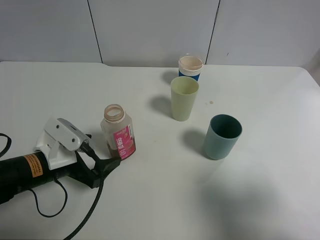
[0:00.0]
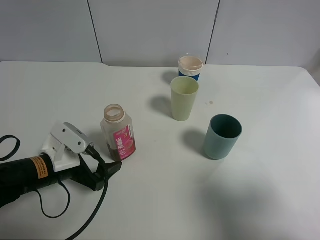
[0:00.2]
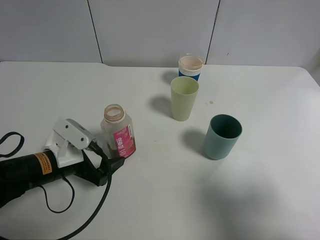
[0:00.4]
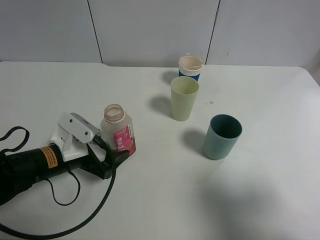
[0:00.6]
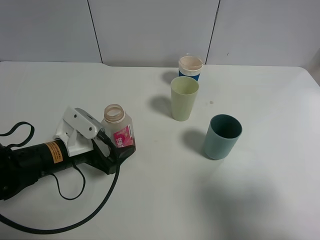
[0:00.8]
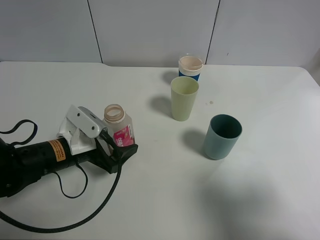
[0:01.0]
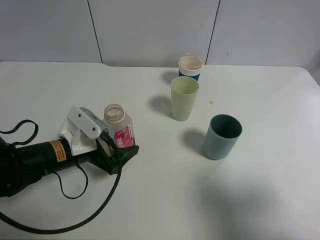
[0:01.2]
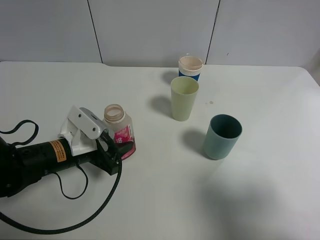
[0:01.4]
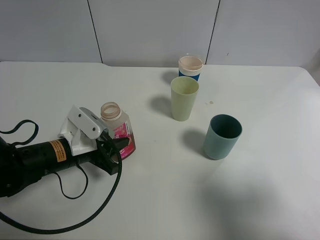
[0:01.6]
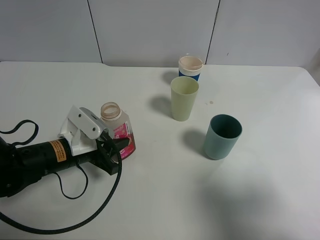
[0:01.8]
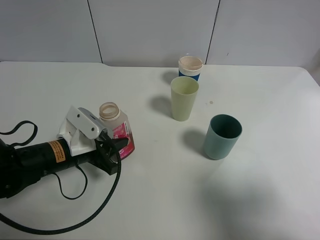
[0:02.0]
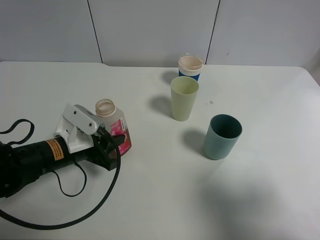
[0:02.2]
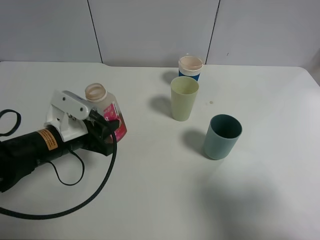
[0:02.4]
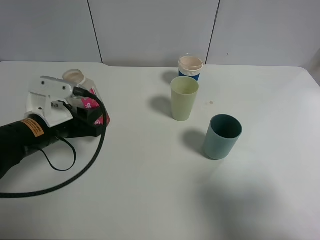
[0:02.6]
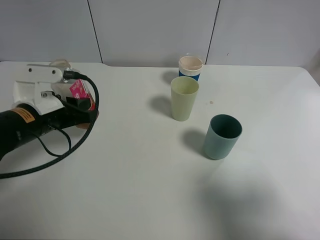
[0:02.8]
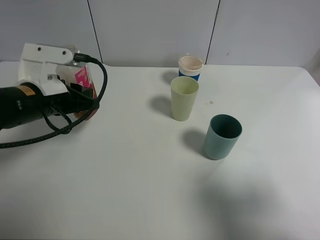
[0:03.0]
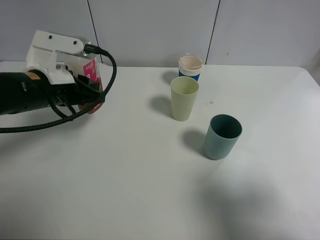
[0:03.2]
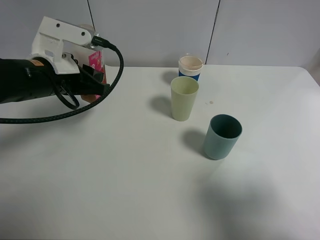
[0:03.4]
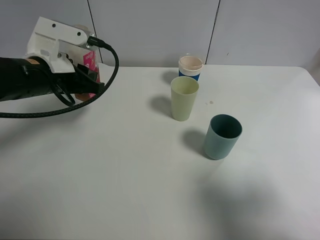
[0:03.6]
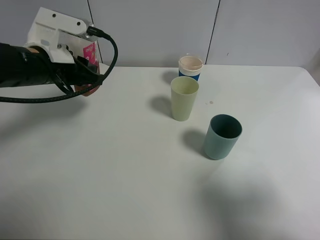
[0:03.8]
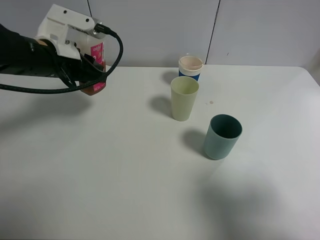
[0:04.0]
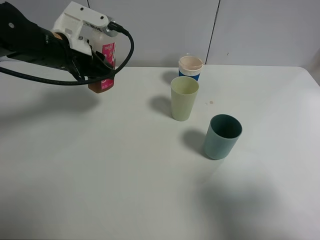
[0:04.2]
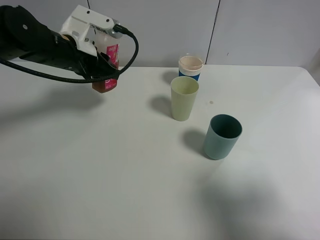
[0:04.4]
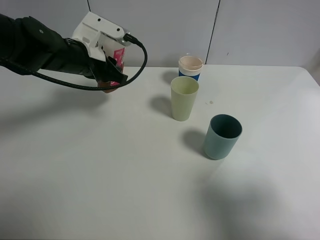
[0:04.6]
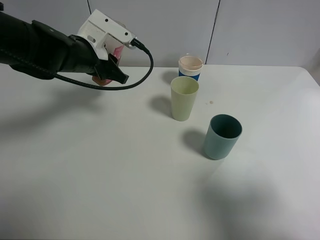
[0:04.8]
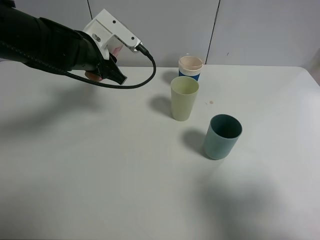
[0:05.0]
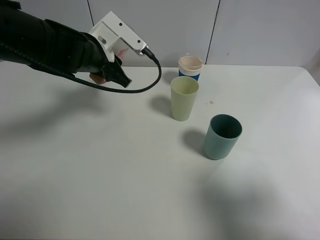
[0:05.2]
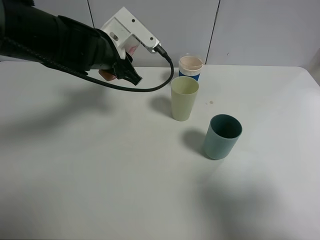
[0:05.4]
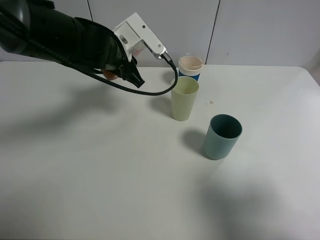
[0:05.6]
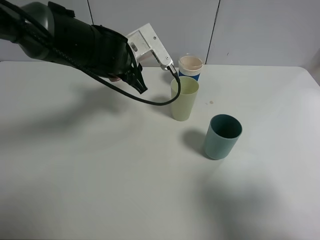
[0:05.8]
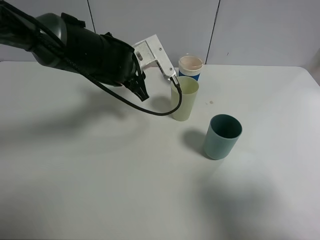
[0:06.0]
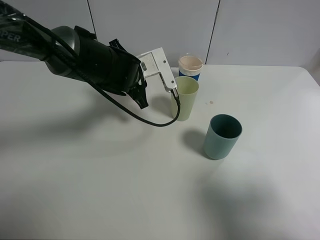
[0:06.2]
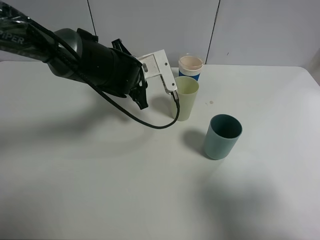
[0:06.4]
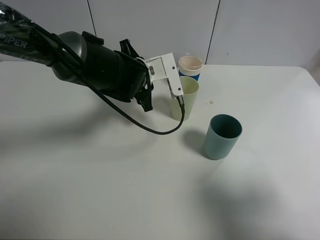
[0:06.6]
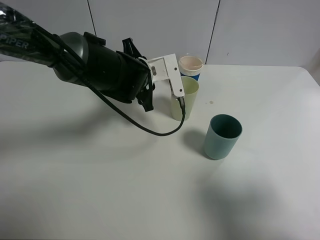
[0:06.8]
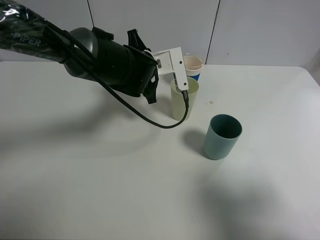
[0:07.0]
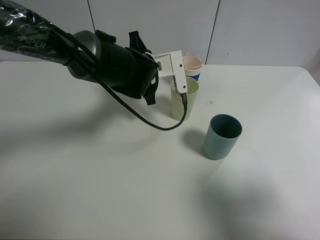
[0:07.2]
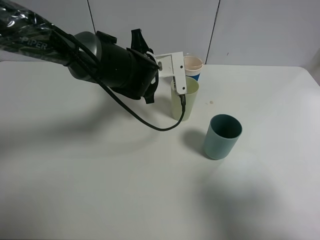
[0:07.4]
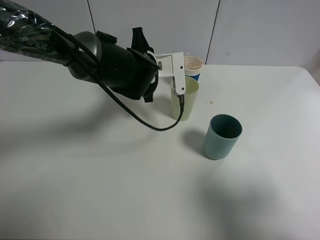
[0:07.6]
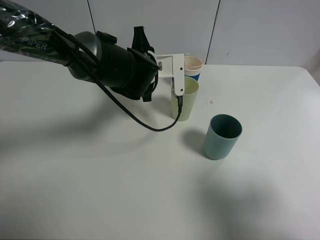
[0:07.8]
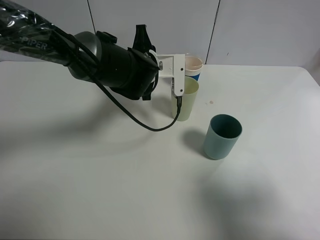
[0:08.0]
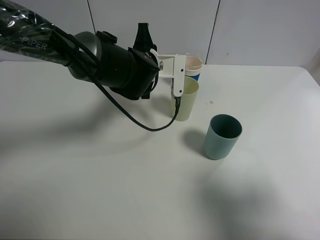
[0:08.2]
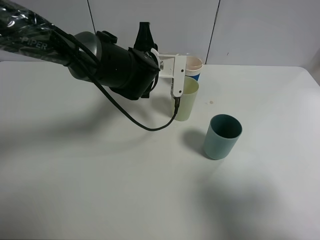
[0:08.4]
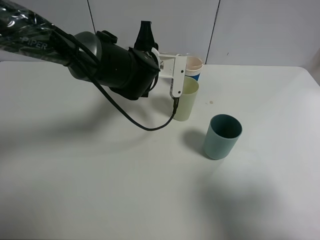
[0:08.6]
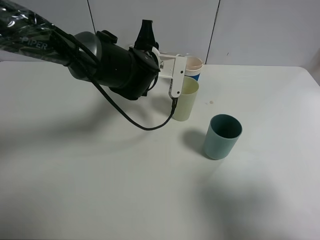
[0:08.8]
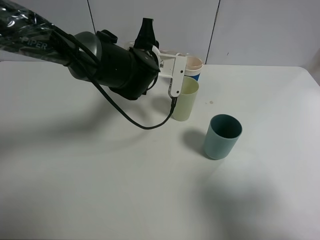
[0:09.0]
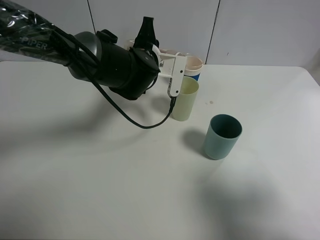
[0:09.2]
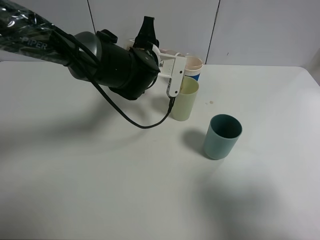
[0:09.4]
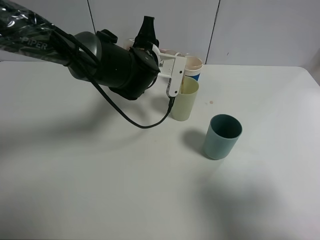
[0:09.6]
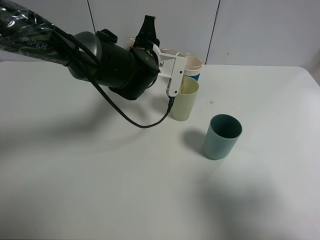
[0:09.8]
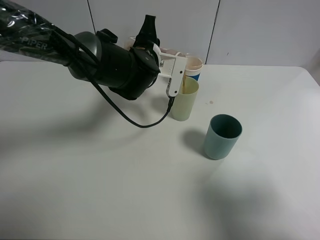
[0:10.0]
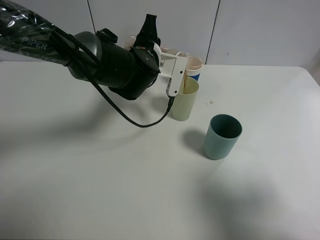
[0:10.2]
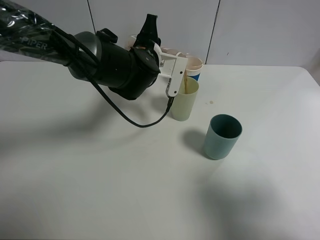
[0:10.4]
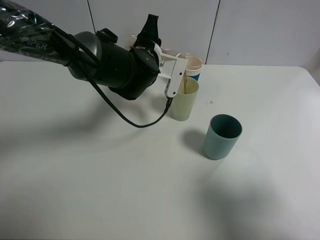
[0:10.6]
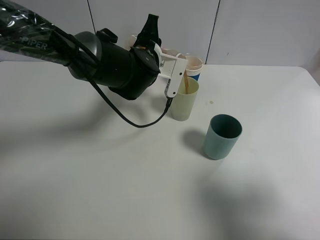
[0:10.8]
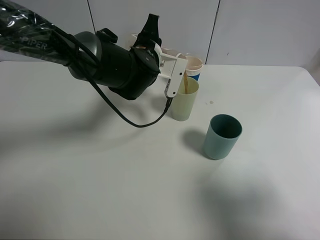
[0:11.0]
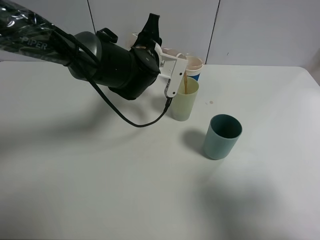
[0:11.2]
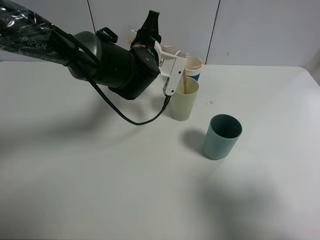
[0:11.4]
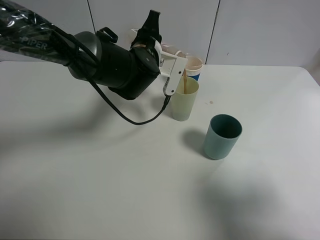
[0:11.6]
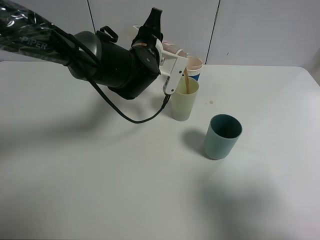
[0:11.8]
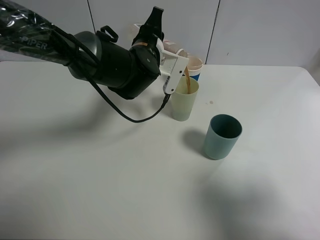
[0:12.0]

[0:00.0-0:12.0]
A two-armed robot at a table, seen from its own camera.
Task of the whole recording: use a clamp to hold the bottle of the drink, pour the beverage into a random cup, then clamp the cup containing the drink and pour the drink into another random cup.
Step, 0:00.0 to 0:02.4: Pick up the drink bottle with left gripper.
0:00.0 to 0:01.6: The left gripper closes its fingers.
0:01.6 to 0:03.0: The left gripper shifts approximately 10 cm upward.
0:03.0 to 0:04.4: The left gripper shifts roughly 10 cm forward.
0:04.4 to 0:06.0: The left gripper shifts some 10 cm to the right.
0:07.6 to 0:09.0: The grippers move only a little.
0:09.0 to 0:12.0: The grippers make only small movements.

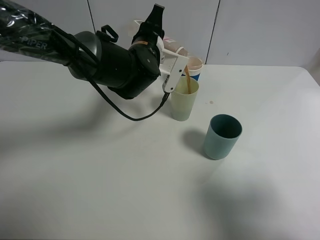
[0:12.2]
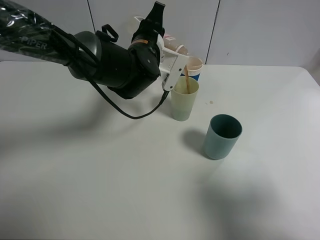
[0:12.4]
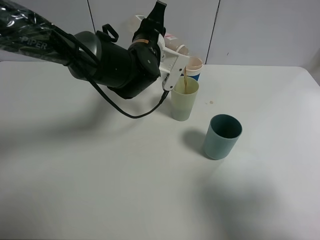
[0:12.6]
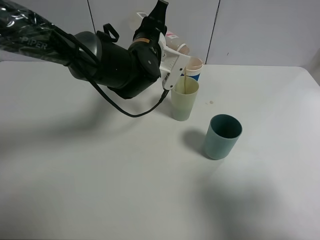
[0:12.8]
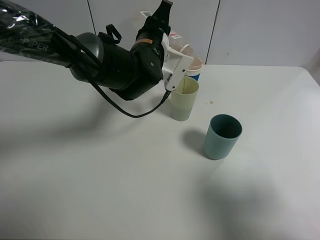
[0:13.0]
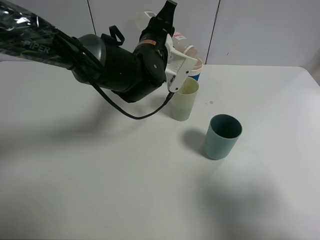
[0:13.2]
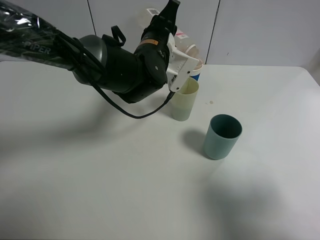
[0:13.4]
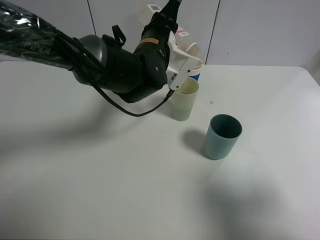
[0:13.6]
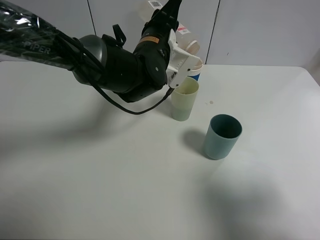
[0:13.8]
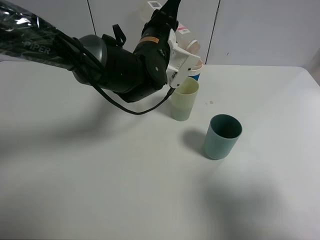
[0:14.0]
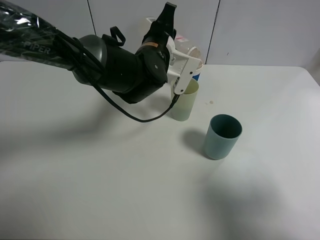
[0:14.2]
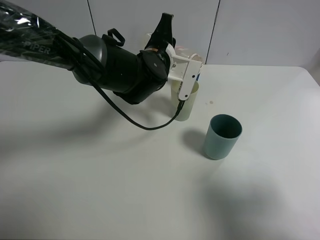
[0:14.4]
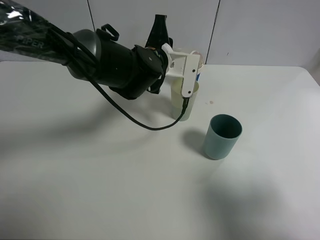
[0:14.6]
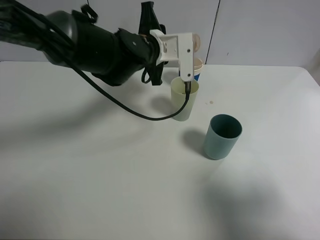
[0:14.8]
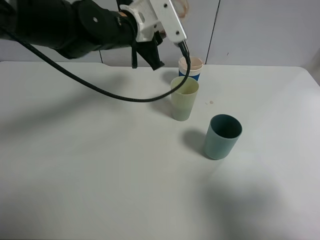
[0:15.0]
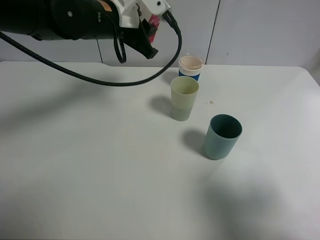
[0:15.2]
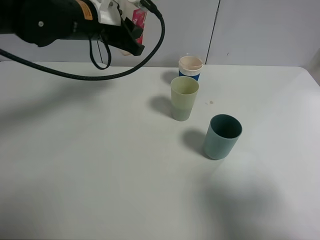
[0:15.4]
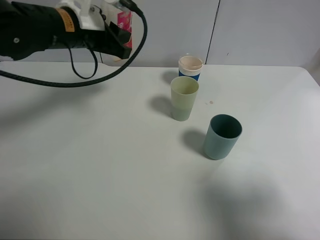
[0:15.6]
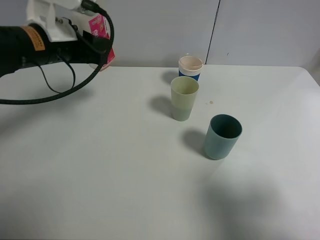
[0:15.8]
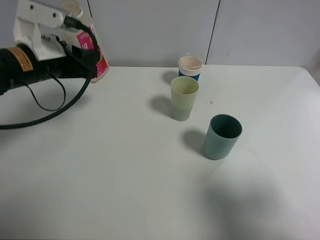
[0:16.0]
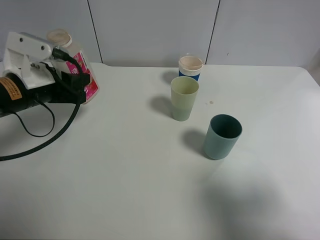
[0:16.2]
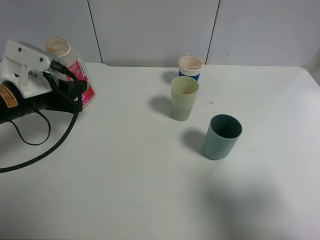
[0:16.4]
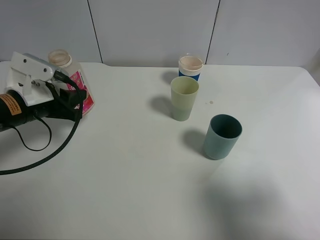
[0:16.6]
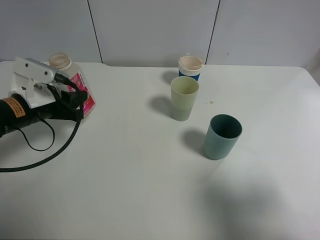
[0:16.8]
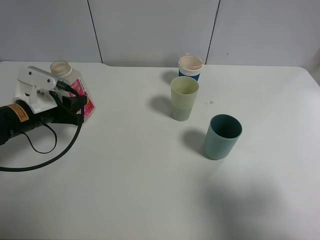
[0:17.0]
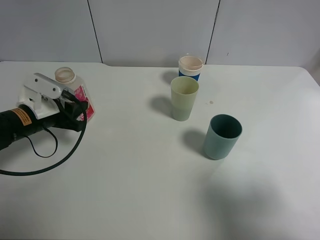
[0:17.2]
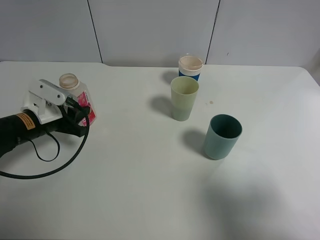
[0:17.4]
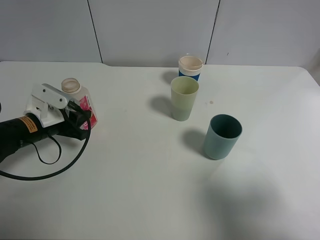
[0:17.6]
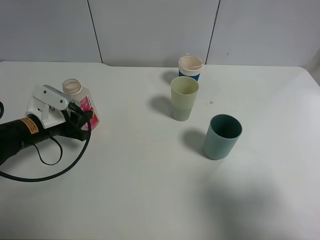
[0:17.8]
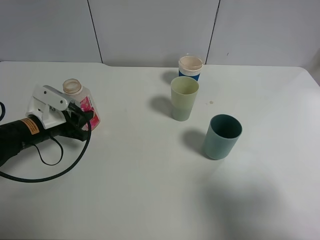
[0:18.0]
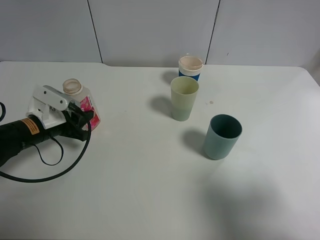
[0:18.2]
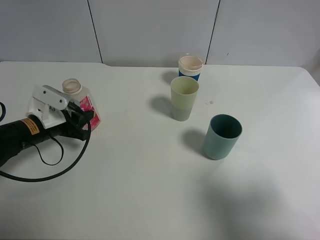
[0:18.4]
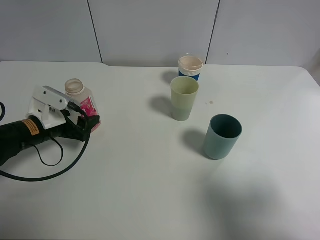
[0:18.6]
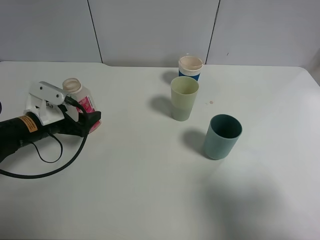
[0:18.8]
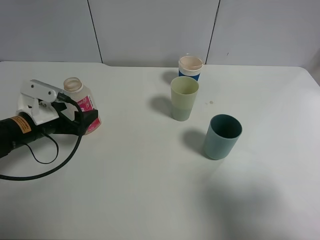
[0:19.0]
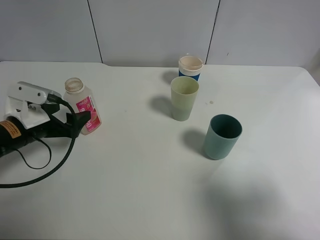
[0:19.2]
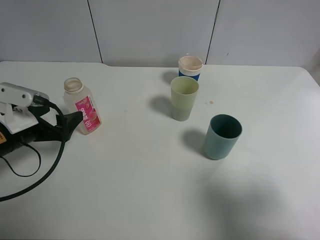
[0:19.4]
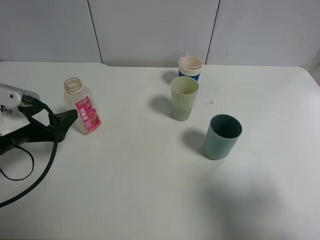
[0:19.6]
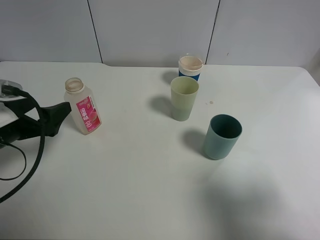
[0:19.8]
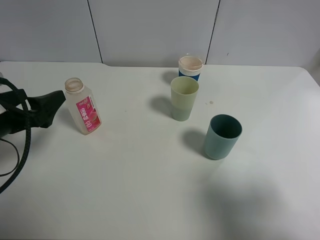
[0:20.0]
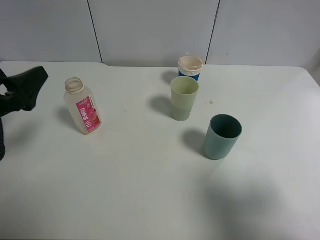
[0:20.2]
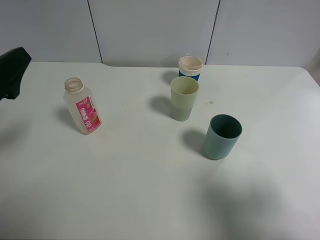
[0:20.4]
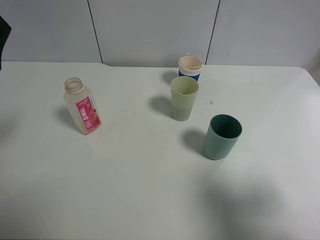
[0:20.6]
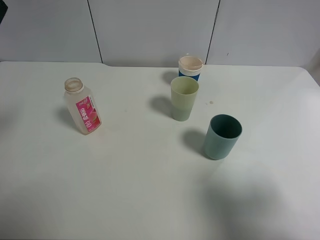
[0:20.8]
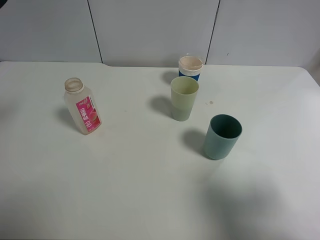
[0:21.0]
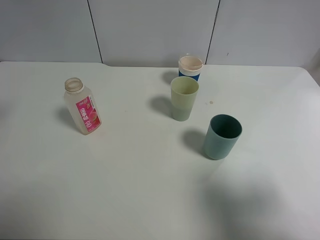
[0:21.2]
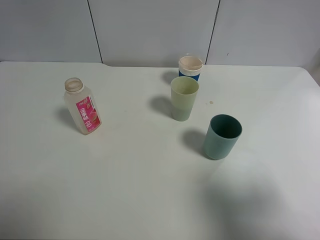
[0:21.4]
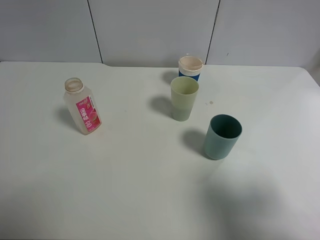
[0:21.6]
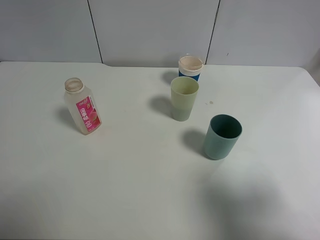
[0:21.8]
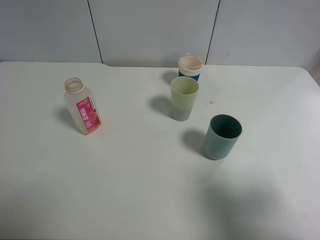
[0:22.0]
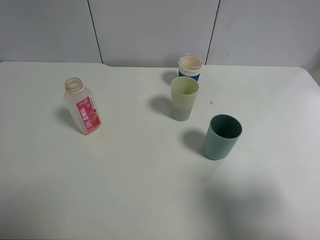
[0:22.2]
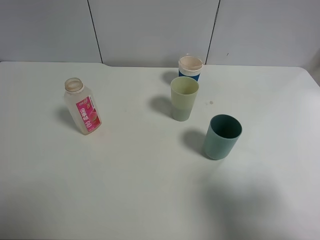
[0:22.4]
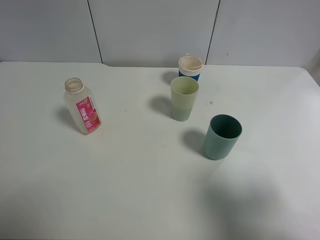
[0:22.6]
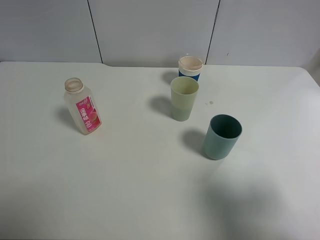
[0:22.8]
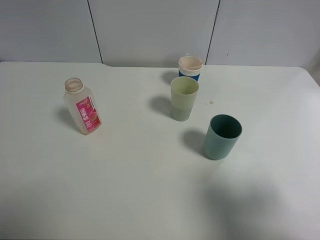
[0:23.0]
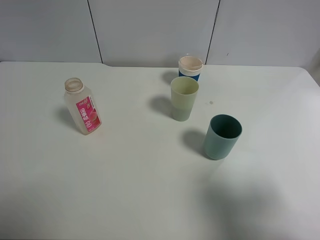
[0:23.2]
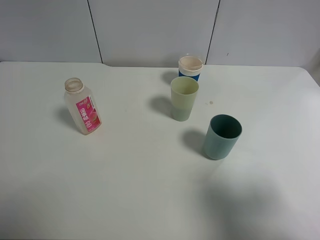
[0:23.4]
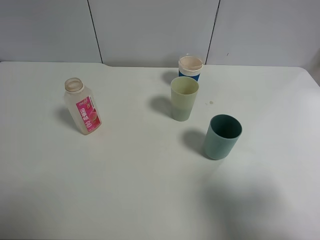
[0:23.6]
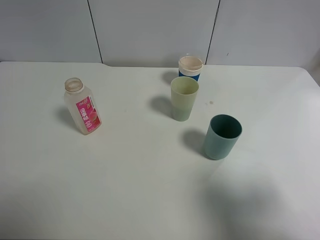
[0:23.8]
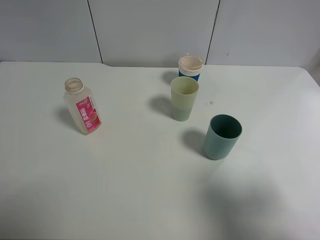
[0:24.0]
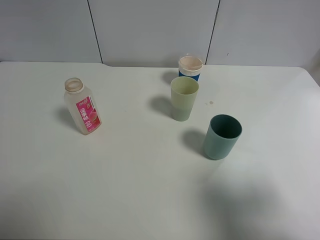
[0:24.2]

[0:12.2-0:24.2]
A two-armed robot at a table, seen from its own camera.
Task of the whole recording: use a clamp to hold the bottle of the drink, pour the beverage into a random cup, then clamp the cup containing the drink and pour the drink into another random cup.
Step, 0:12.2 to 0:14.8: Pour the drink into the green plastic cup with left gripper.
Step, 0:15.0 to 0:19.0: Place the drink bottle on the table with left gripper.
0:12.2 to 0:13.8: The grippers stay close to where they were, moving slightly.
0:13.8 to 0:15.2: The left gripper moves to the left and upward, roughly 10 cm.
0:15.2 to 0:16.6: The left gripper goes some 20 cm to the left, backward and downward.
0:16.6 to 0:18.2: The left gripper heads downward, covering some 10 cm.
0:18.2 to 0:19.8: The left gripper goes roughly 10 cm backward and upward, and opens up.
0:19.8 to 0:21.2: The left gripper is displaced upward by approximately 15 cm.
0:22.6 to 0:24.2: Neither gripper changes place.
